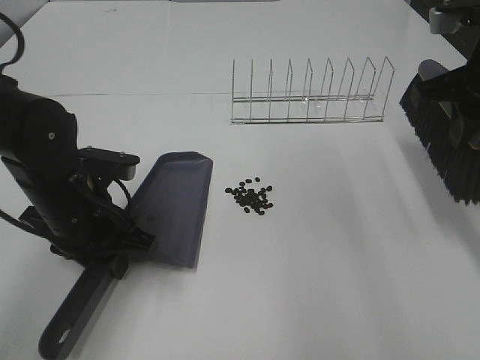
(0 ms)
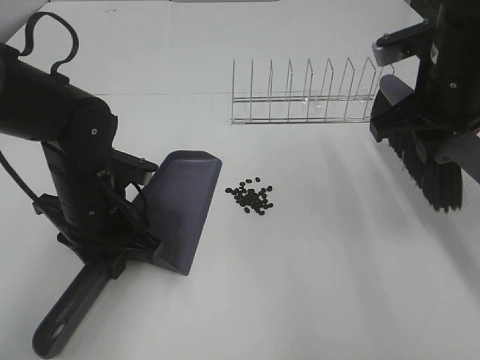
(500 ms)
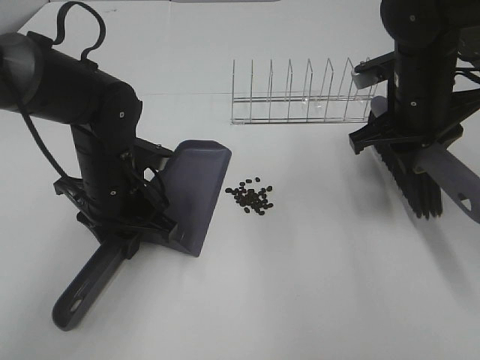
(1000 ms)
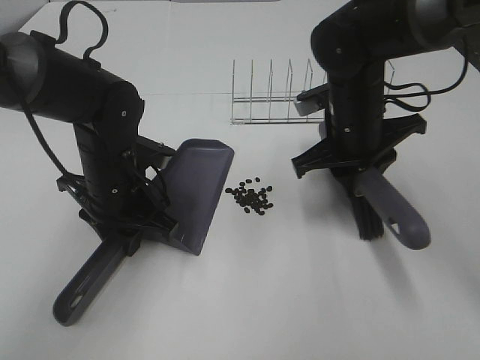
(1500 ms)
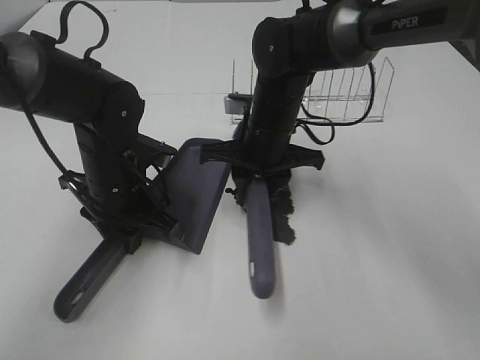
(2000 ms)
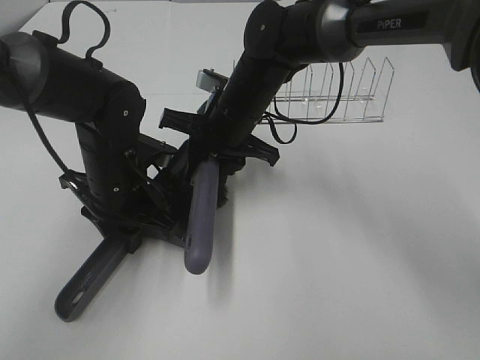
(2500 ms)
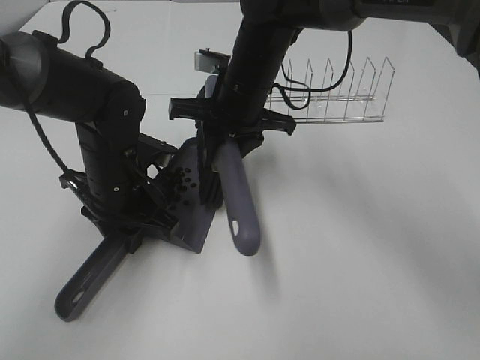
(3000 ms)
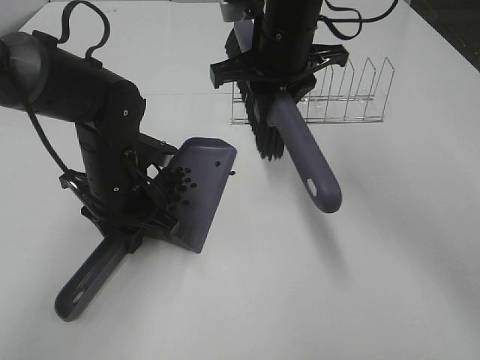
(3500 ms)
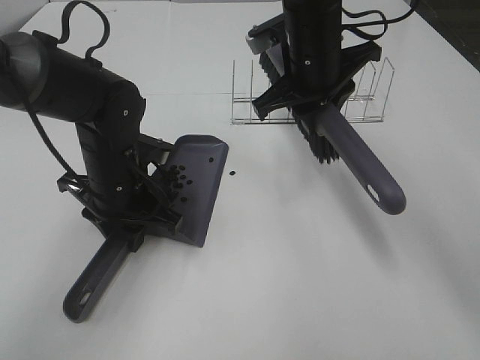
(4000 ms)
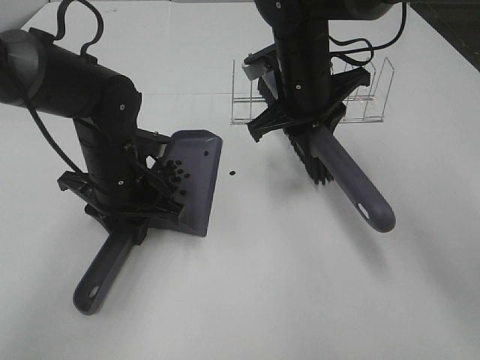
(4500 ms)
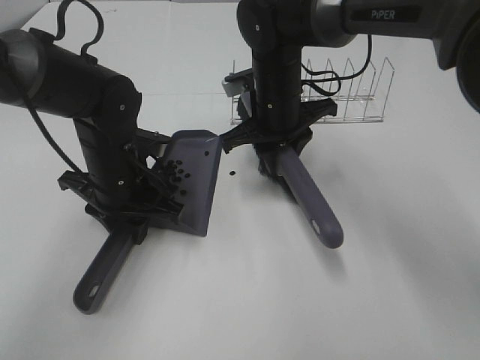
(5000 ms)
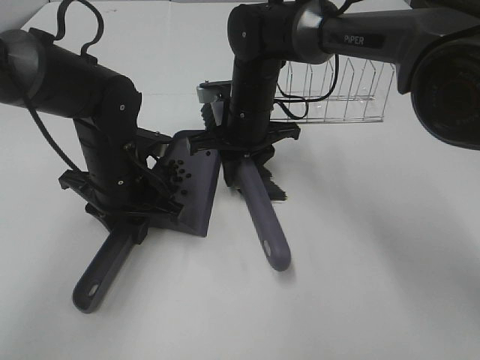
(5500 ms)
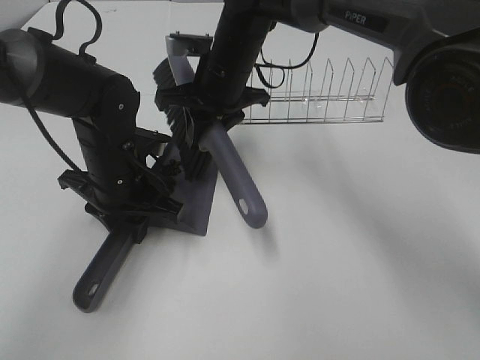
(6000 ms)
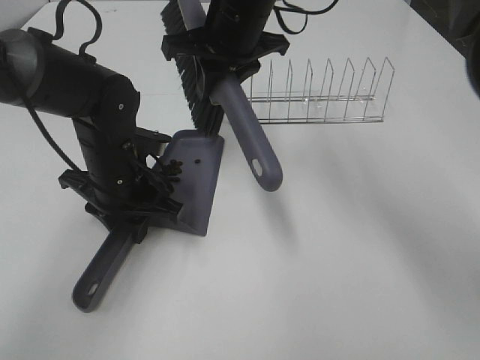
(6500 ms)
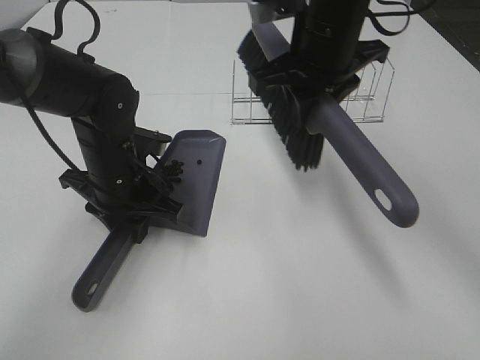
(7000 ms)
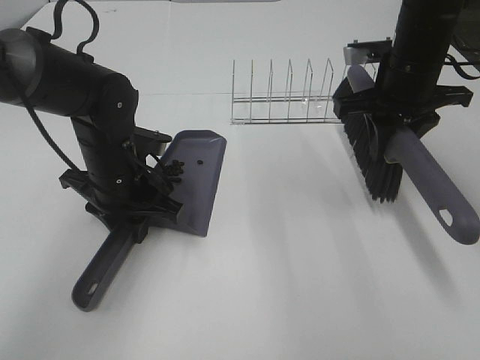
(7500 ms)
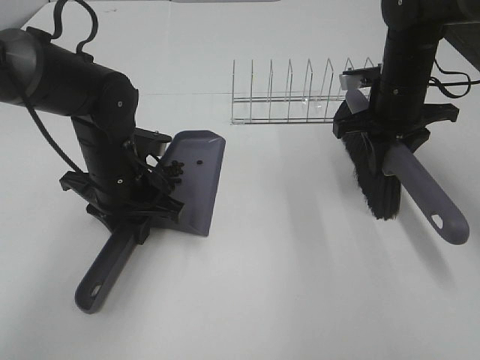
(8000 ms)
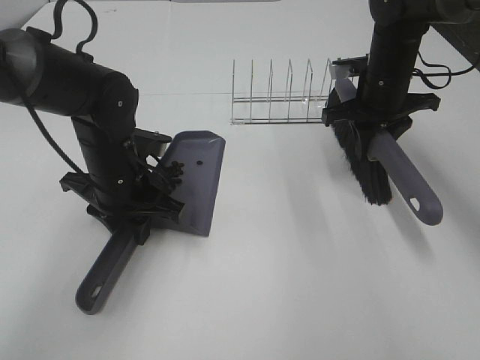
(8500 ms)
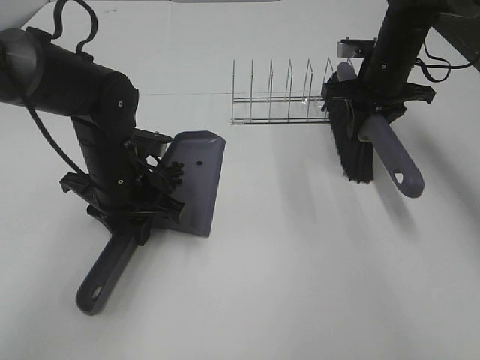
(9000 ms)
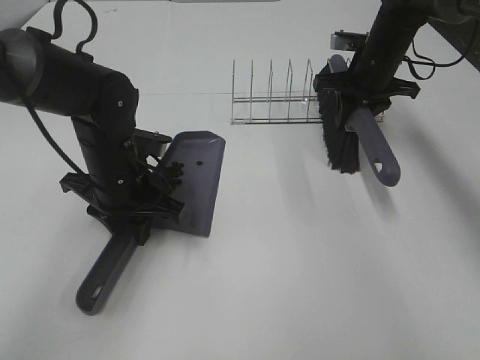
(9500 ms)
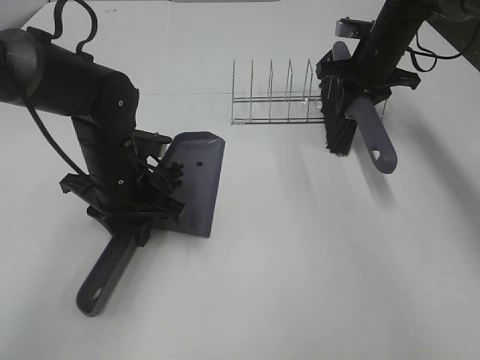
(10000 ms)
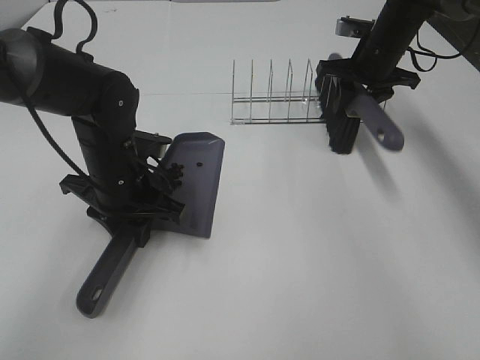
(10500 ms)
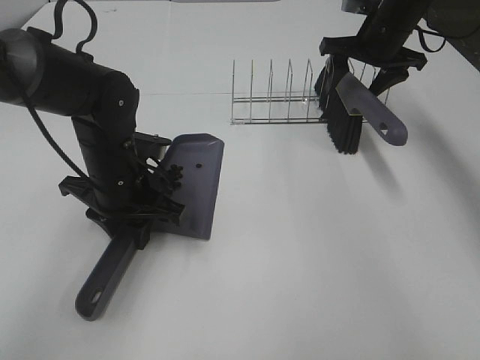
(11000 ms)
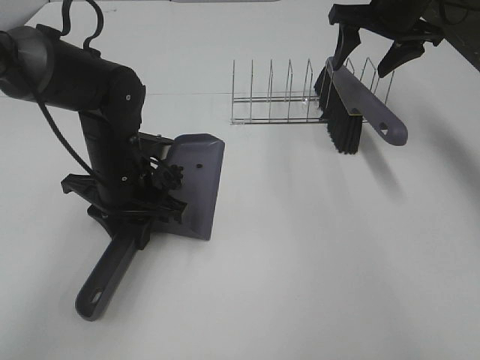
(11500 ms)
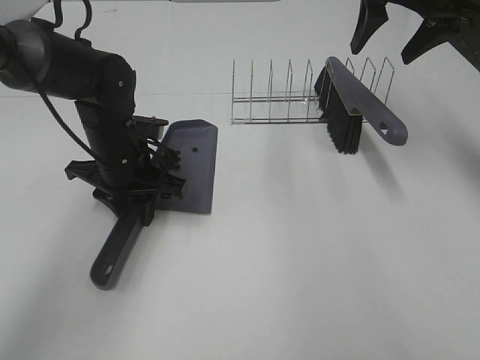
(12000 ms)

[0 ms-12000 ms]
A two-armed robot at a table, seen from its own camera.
Task of the whole recording: Sweep Coffee Bean.
Step, 0 ms to 6000 ms: Right hand:sweep the coffee beans into the dustpan.
Step, 6500 ms to 10500 ms: Right hand:place the broom on the rack.
0 ms to 2000 ms: The right gripper moves to the left and downward, approximately 25 cm; the left gripper moves about 5 cm.
2000 ms to 4000 ms: The right gripper travels upward by roughly 10 cm.
4000 ms to 6000 ms: The right gripper shifts about 10 cm to the left.
6000 ms to 8000 ms: The right gripper moves to the right, about 20 cm.
8000 ms to 10000 ms: The right gripper is displaced forward by about 10 cm.
10000 ms to 12000 ms: The right gripper travels upward and backward by approximately 15 cm, and opens its fingers.

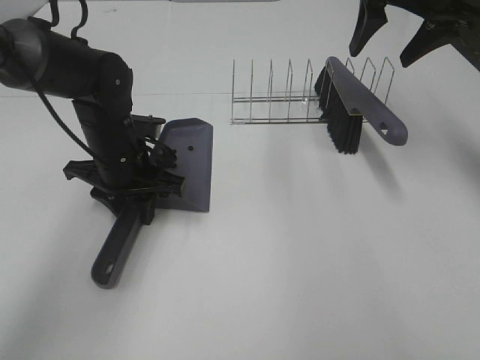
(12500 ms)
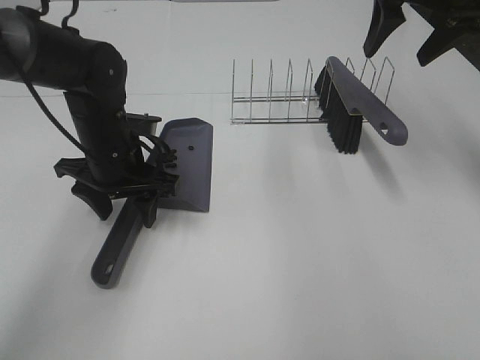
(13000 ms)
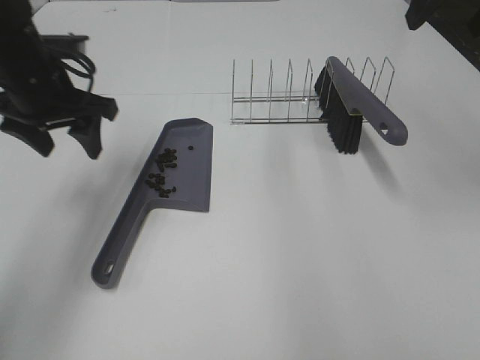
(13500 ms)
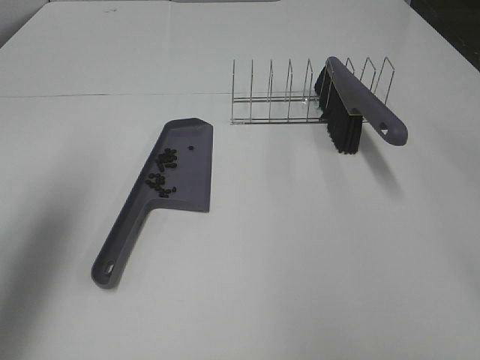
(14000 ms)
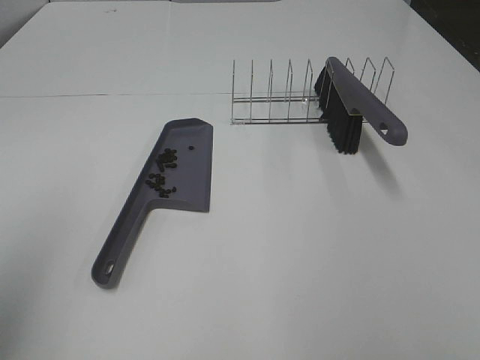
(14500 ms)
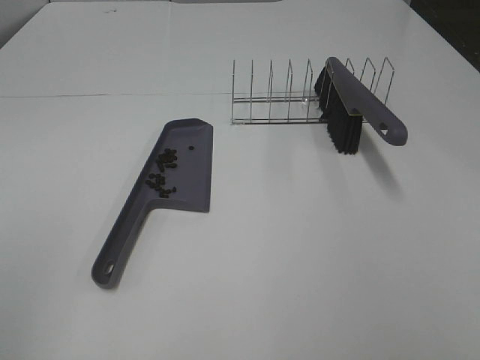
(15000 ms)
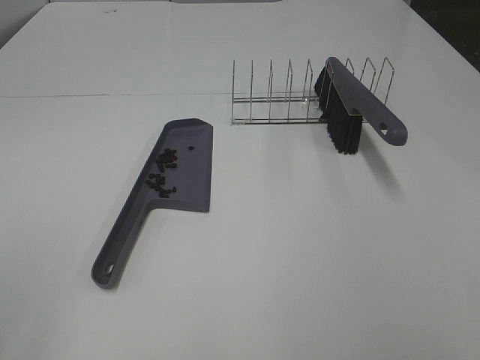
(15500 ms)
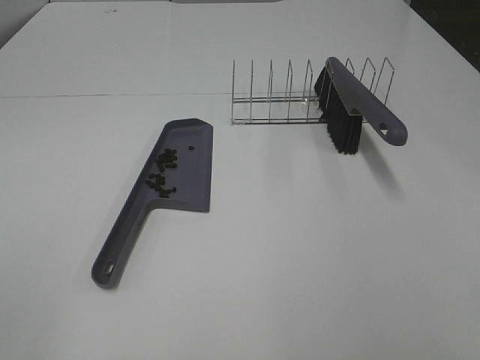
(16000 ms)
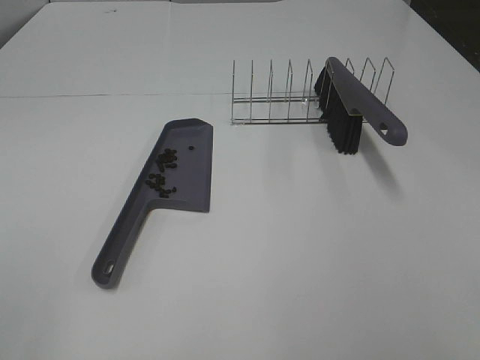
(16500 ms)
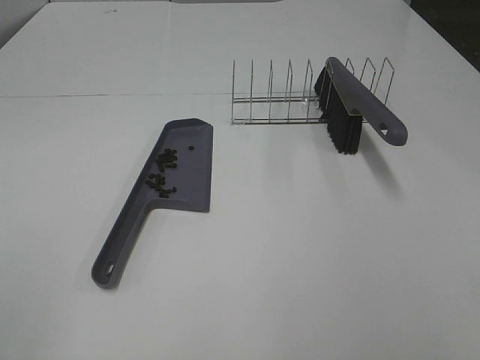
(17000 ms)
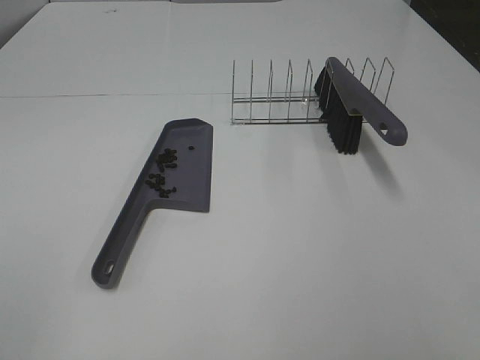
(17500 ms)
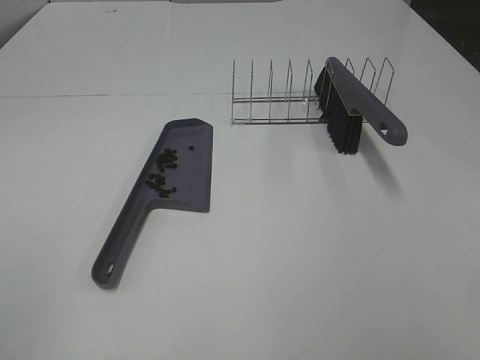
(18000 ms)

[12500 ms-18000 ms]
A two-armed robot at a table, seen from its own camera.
Task of the whole recording: Sweep Coffee Bean.
12500 ms to 14500 ms: The left gripper travels backward, upward and to the left by roughly 35 cm. Meanwhile the right gripper goes about 40 cm backward.

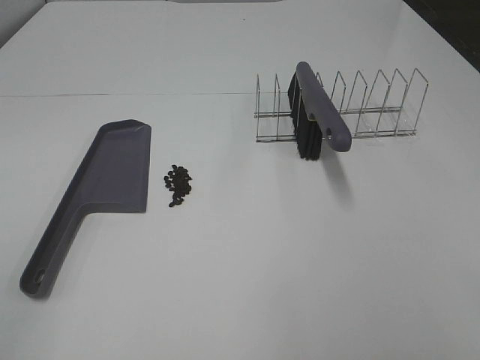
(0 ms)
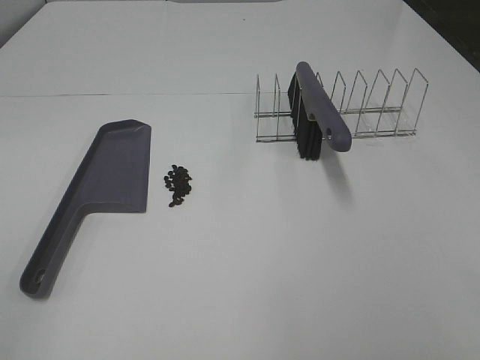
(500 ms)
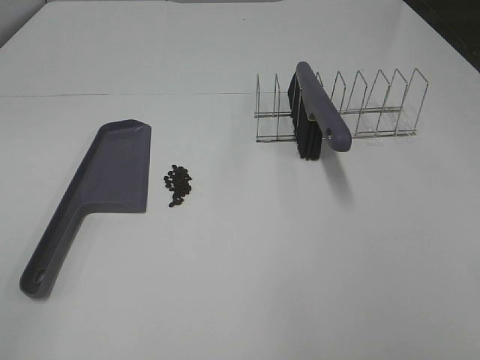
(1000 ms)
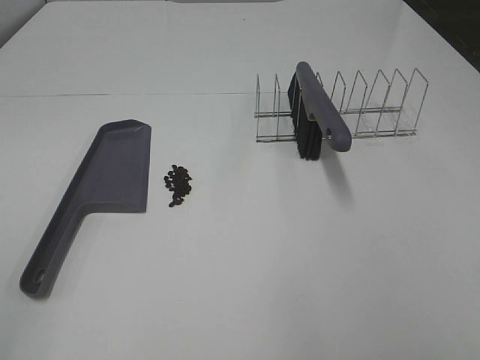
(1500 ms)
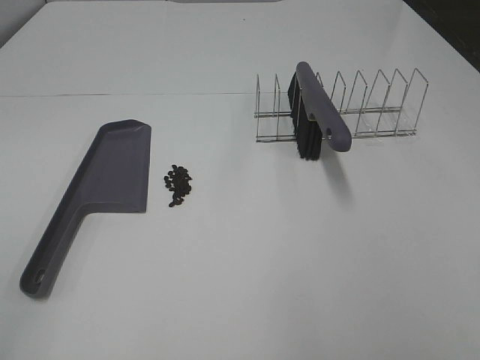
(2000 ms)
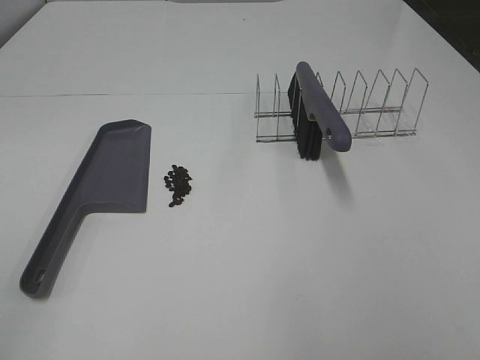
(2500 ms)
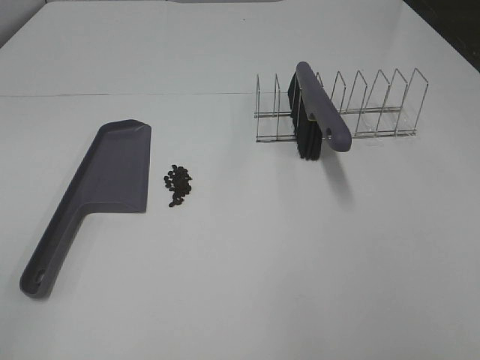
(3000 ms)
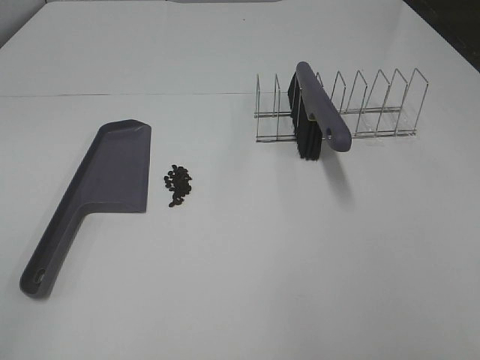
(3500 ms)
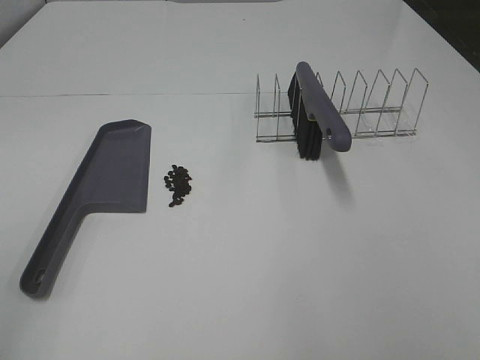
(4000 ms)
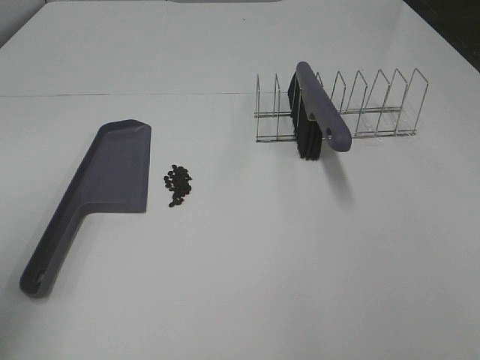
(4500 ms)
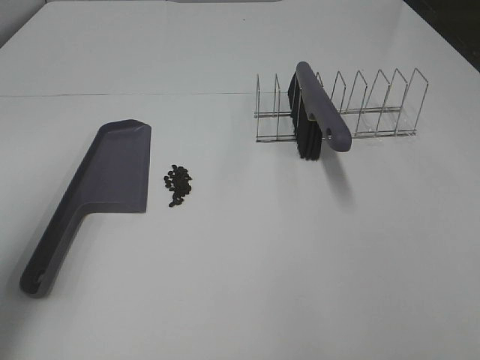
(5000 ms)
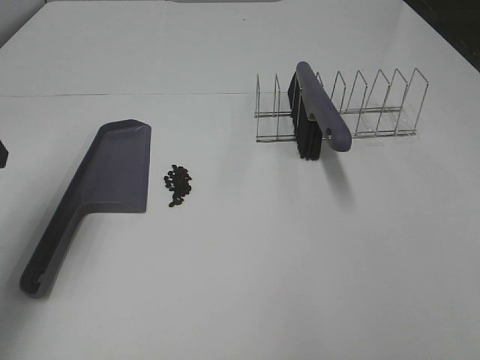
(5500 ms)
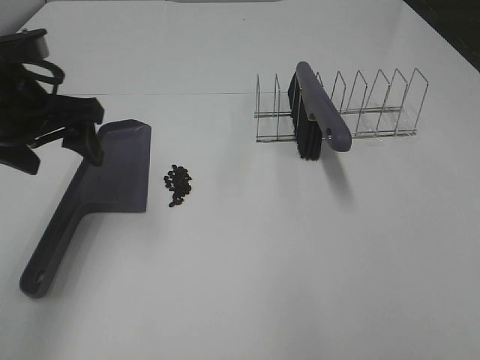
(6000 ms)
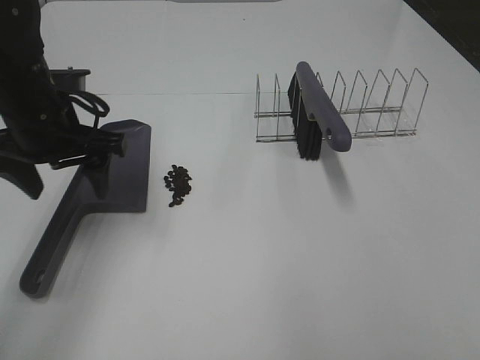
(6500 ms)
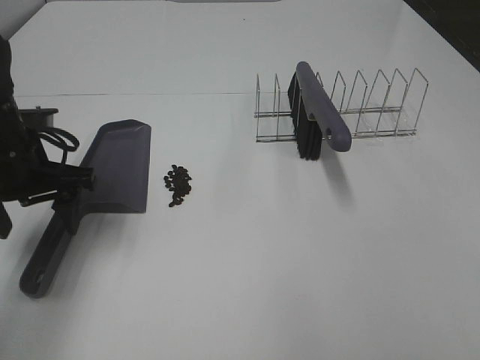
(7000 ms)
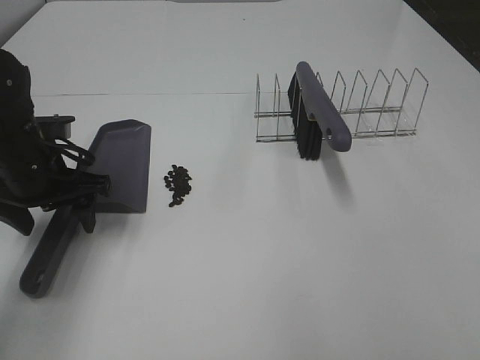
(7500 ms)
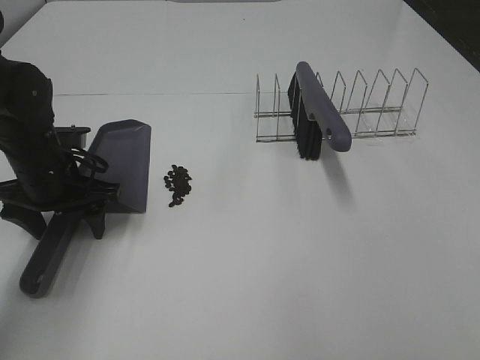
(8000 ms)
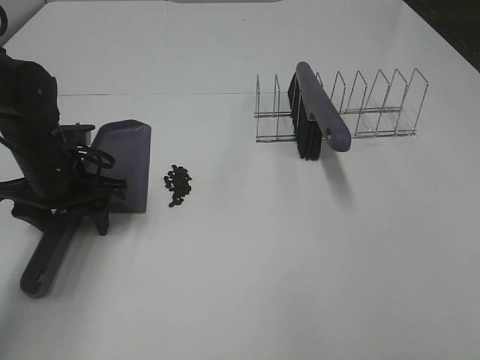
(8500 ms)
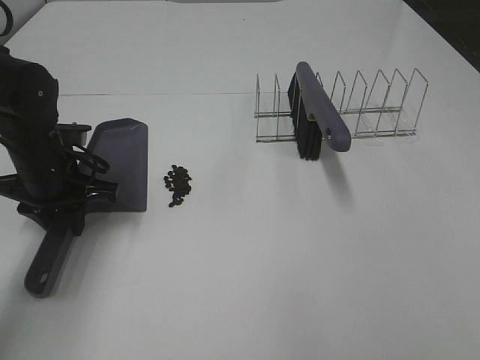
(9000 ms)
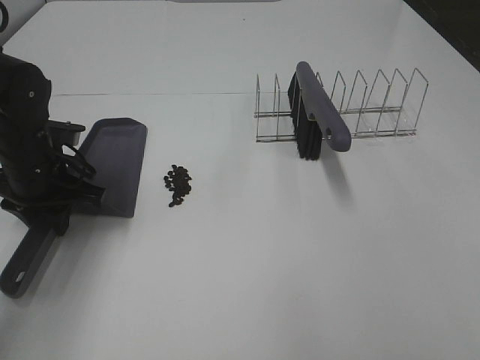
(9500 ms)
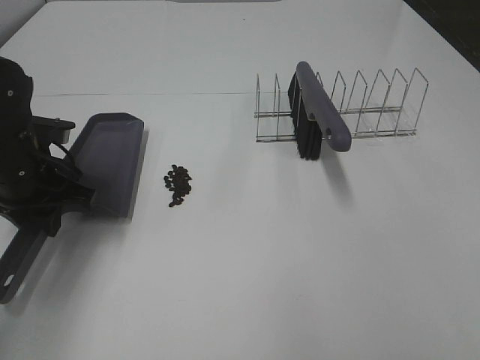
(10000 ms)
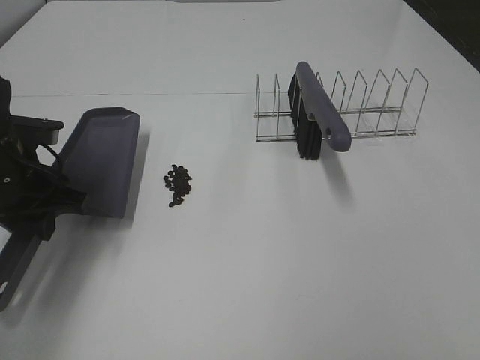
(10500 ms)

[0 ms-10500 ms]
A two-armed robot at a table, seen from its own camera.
Task of the whole recording: Sweep Coffee Bean.
Step, 0 ms to 9000 ms: Left hand: grab the dustpan.
4000 ms to 6500 ms: The left gripper travels forward and to the right by about 30 cm.
6500 ms to 8500 ms: The left gripper travels downward by roughly 10 cm.
8500 ms to 10500 ms: The left gripper changes place by about 5 cm, and closes its fingers.
